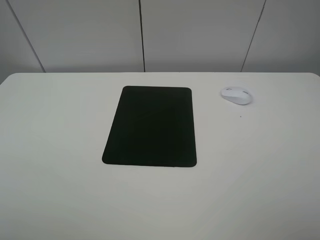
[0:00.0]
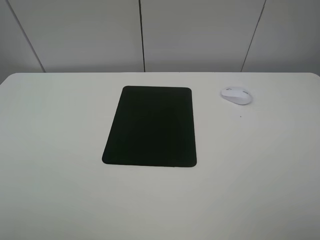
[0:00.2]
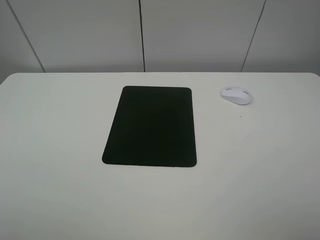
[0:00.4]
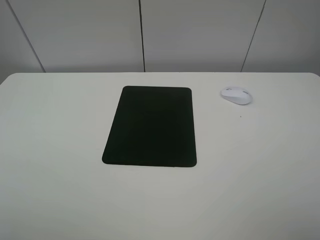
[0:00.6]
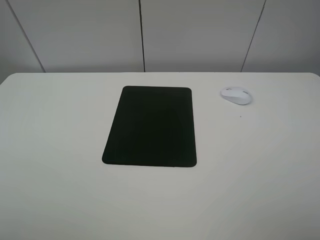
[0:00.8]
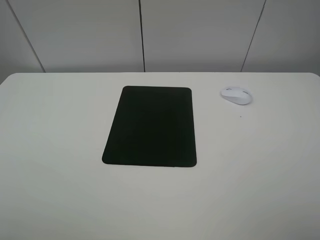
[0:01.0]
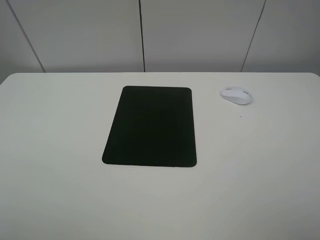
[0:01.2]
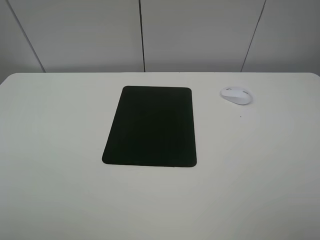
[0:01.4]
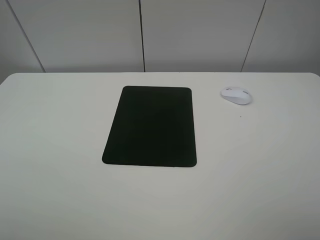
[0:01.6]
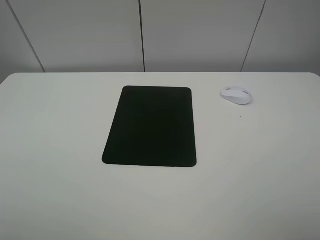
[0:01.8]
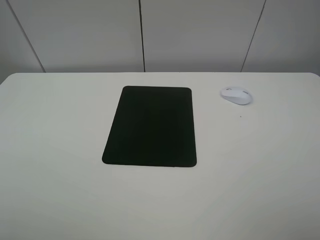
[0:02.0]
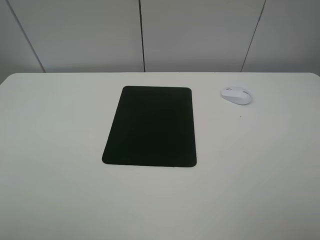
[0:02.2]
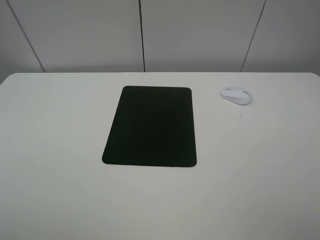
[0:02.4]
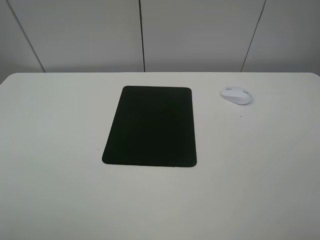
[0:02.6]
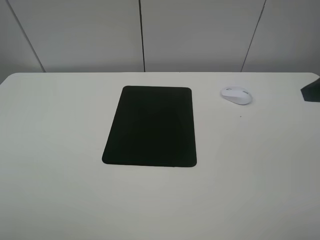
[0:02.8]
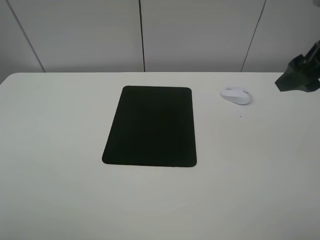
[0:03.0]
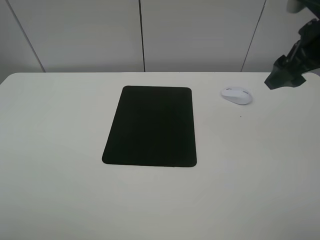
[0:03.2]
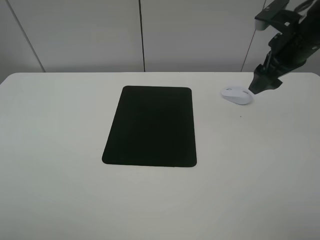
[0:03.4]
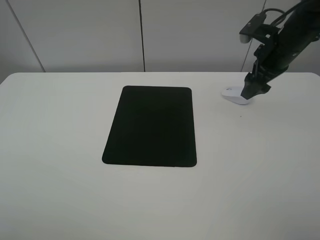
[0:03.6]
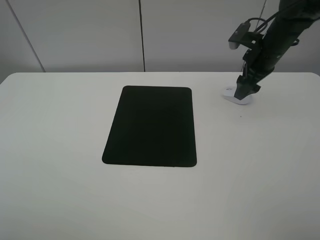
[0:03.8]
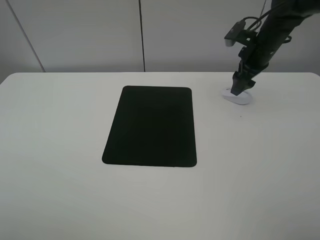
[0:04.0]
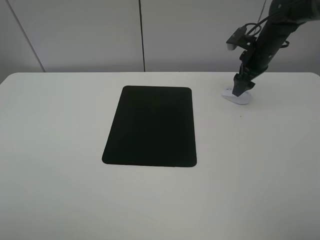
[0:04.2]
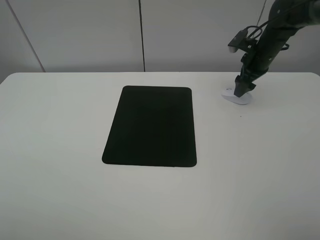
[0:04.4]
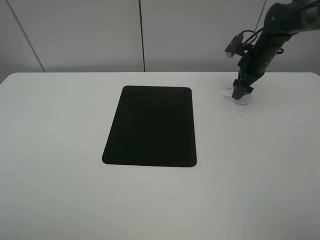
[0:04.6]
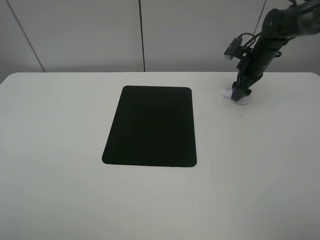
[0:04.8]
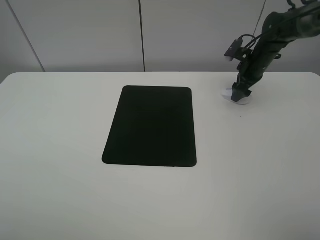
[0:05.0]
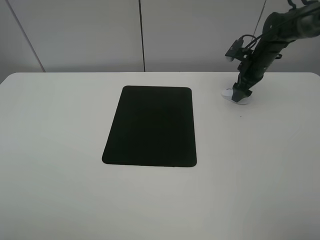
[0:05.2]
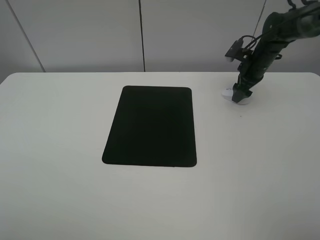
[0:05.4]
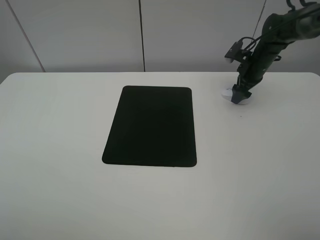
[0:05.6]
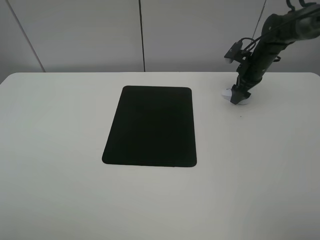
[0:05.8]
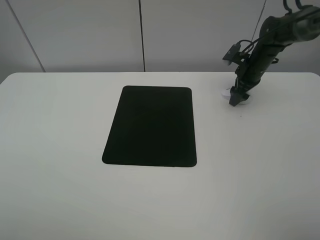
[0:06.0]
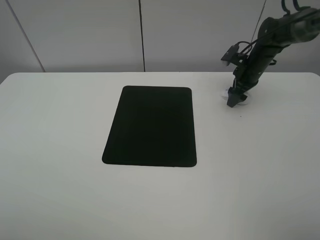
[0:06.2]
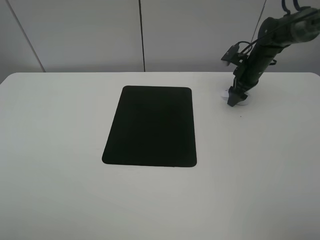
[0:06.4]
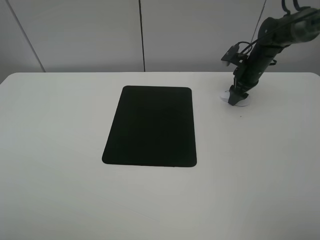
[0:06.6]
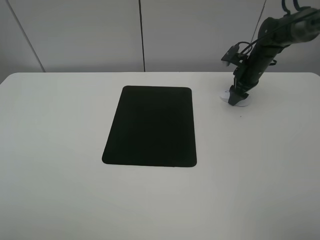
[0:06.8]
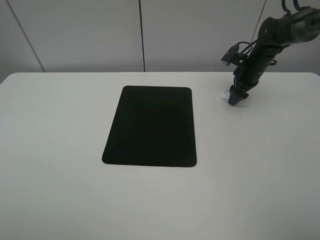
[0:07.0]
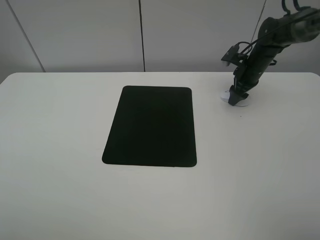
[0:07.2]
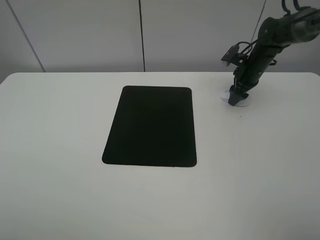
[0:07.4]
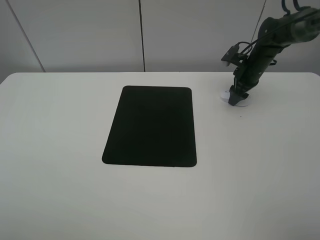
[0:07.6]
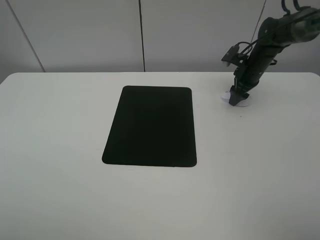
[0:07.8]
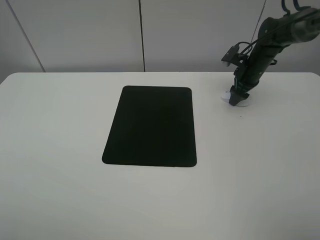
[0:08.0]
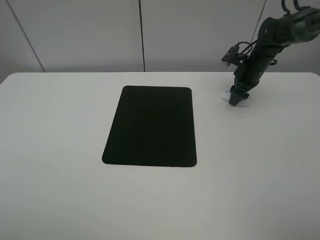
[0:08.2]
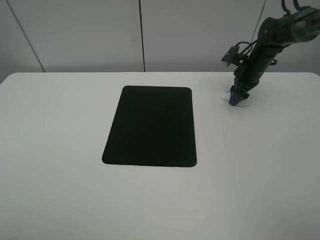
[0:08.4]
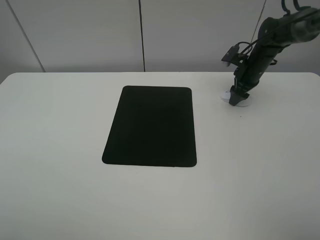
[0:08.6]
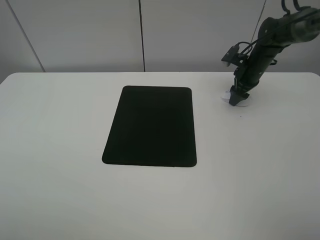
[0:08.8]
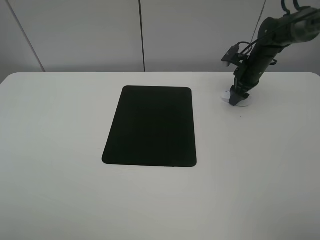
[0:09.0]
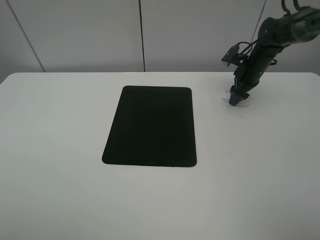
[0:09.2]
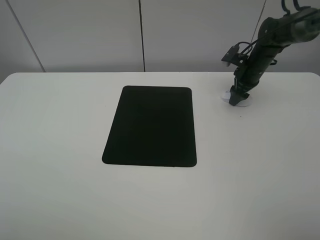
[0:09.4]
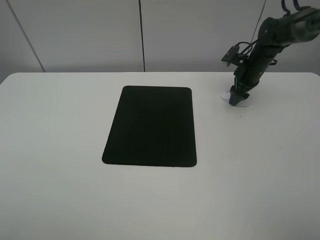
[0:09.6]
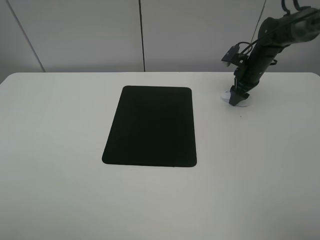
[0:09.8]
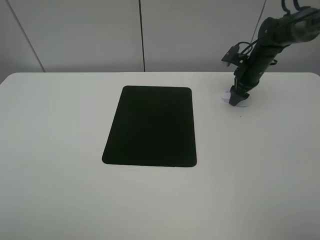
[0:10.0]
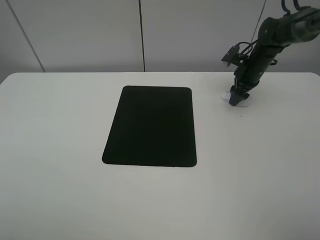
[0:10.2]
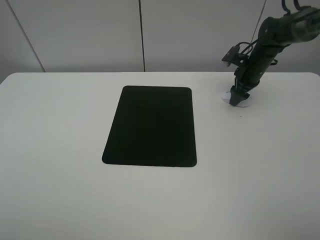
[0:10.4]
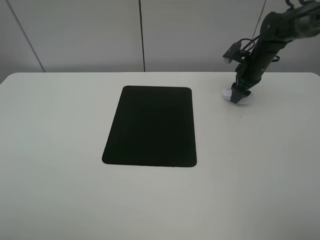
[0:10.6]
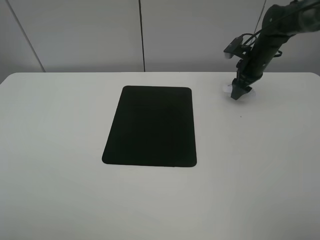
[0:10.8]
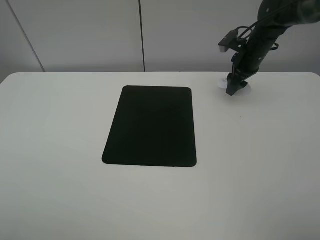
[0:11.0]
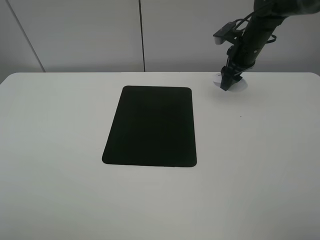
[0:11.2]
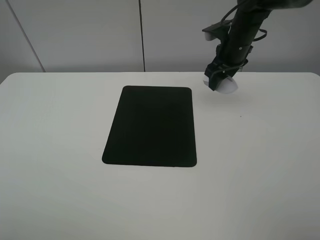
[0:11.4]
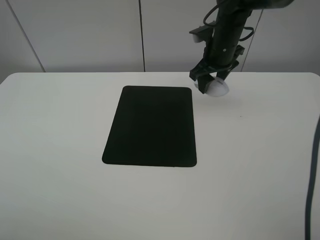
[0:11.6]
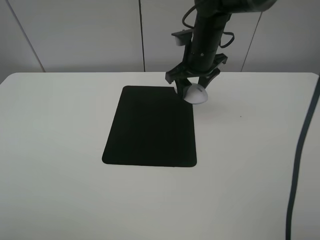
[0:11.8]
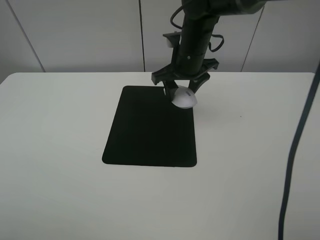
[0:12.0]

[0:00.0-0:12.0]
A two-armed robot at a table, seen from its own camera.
Step, 0:00.0 to 0:10.2: Grasp the mouse with the right gripper.
0:00.0 to 0:01.6: Both grippers stay about where they are.
0:01.6 to 0:03.0: The right gripper is displaced forward by some 25 cm.
0:03.0 to 0:04.4: The right gripper heads forward and downward, covering approximately 25 cm.
0:04.4 to 0:06.0: The grippers move only a little.
0:06.0 to 0:07.6: The right gripper closes up.
0:07.6 to 0:10.4: Both grippers stay about where they are.
0:10.4 to 0:12.0: The right gripper moves to the left, upward and backward, some 25 cm.

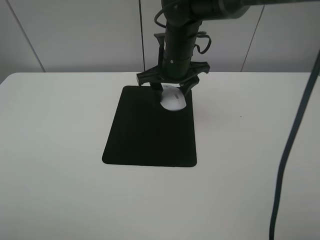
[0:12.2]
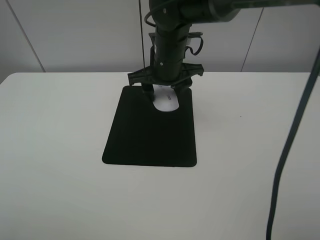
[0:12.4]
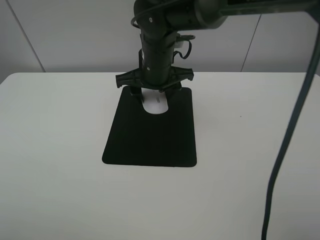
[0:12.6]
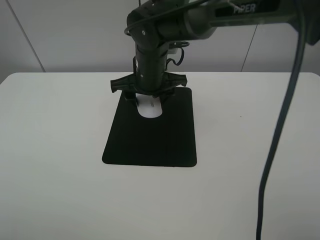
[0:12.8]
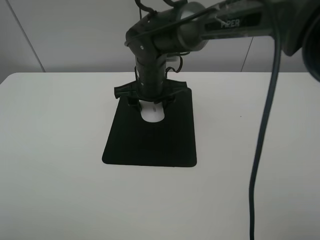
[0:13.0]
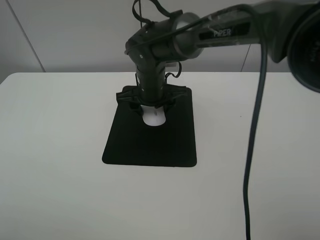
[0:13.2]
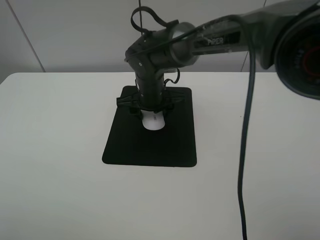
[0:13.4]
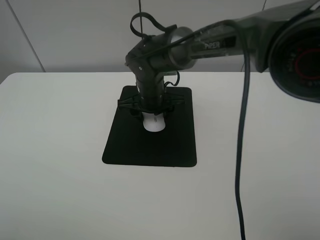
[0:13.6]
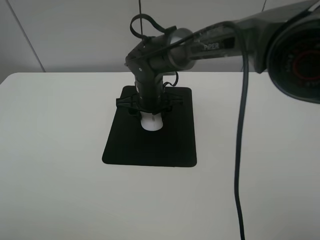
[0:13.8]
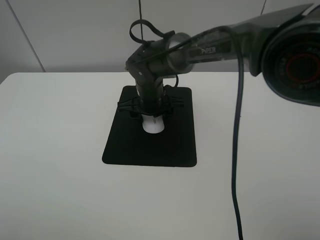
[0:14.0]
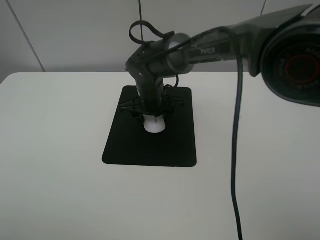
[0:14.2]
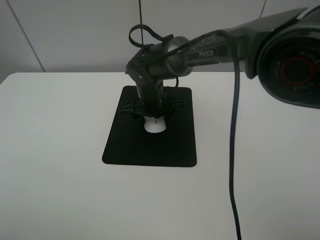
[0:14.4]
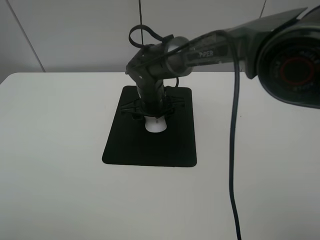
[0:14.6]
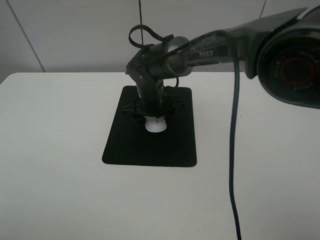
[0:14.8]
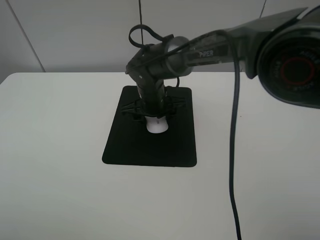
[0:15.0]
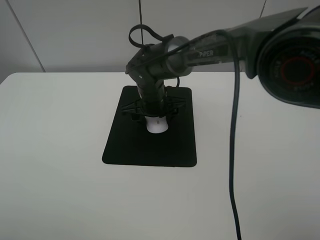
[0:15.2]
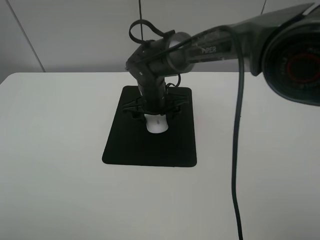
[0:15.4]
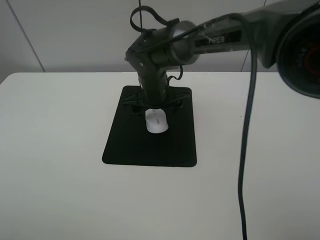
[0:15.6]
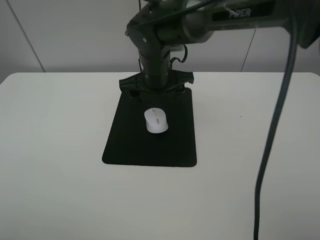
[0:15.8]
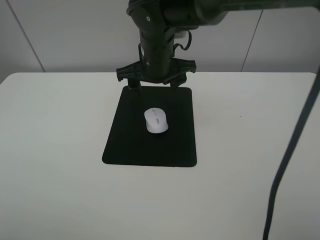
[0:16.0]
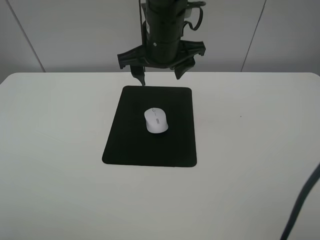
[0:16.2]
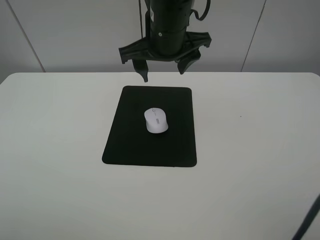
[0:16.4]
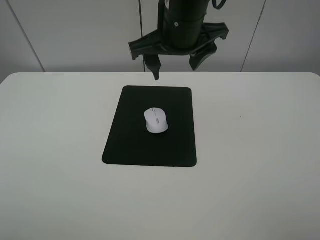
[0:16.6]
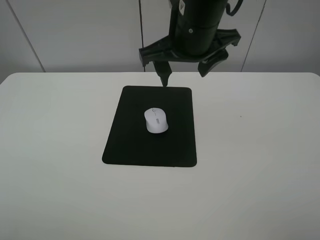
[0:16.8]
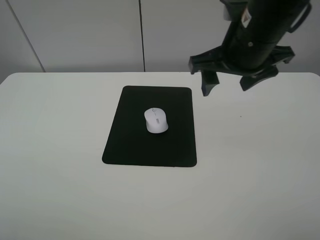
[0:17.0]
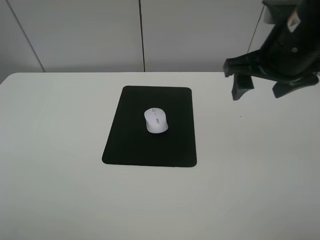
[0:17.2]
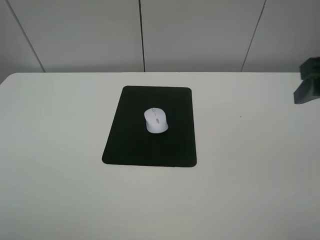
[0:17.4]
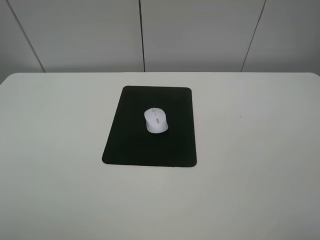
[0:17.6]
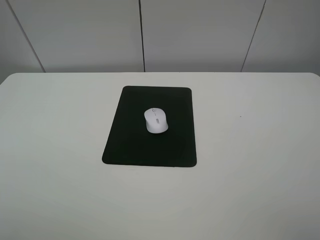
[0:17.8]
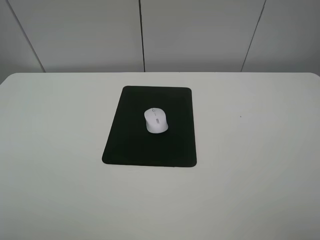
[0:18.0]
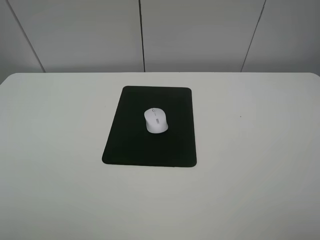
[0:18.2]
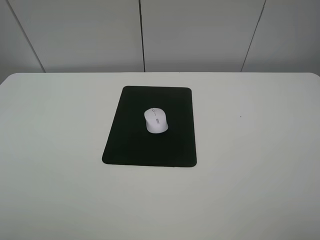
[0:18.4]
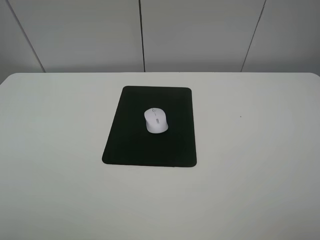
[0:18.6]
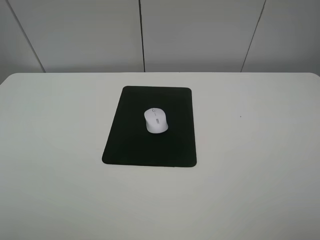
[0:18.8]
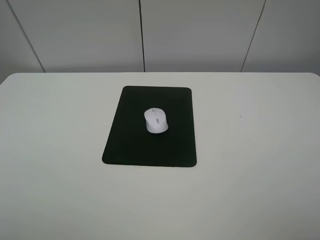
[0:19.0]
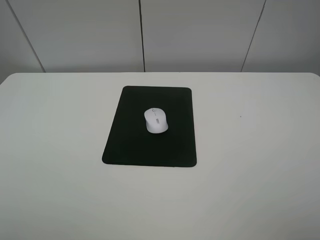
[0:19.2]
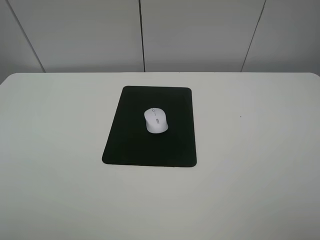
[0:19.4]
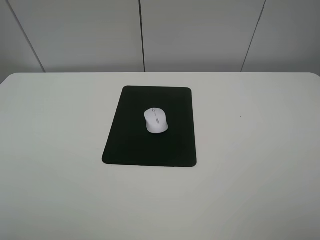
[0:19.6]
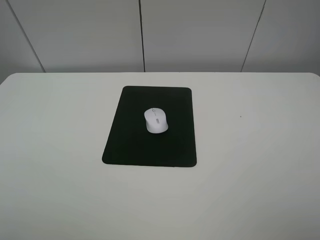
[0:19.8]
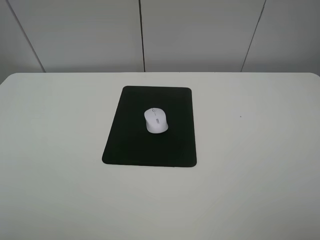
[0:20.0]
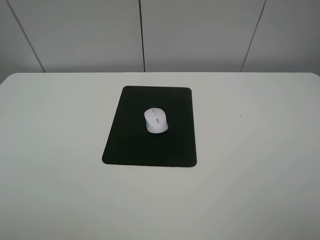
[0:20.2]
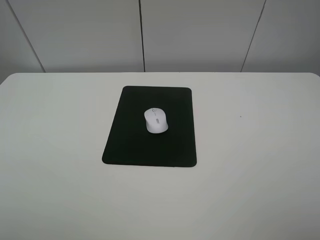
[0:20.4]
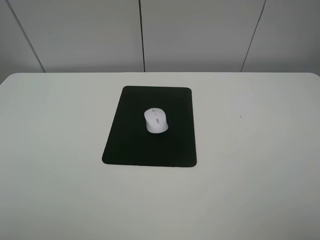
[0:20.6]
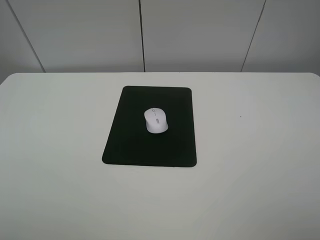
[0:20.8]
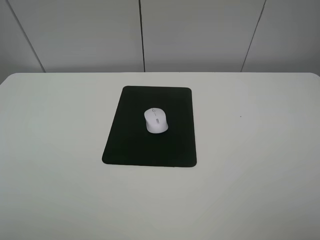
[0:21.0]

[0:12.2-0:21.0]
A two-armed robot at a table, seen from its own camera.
Step, 0:12.2 to 0:15.4: Place the mouse on the mouse mat with the right gripper.
0:12.2 to 0:13.6: The right gripper is displaced downward and to the left by roughly 10 cm.
0:13.6 to 0:15.2: The right gripper opens up.
0:15.2 to 0:16.6: The right gripper is displaced upward by approximately 20 cm.
0:16.6 to 0:18.0: The right gripper travels backward and to the right by about 40 cm.
0:19.6 to 0:21.0: Neither gripper changes place.
